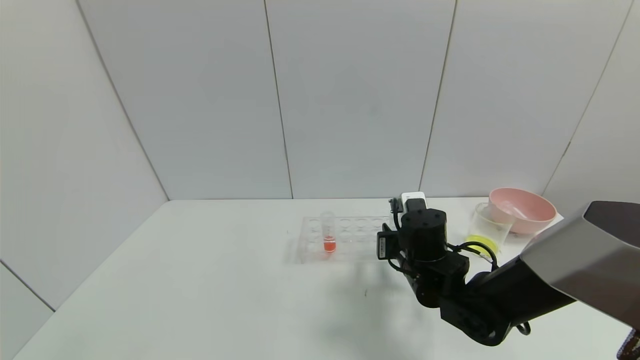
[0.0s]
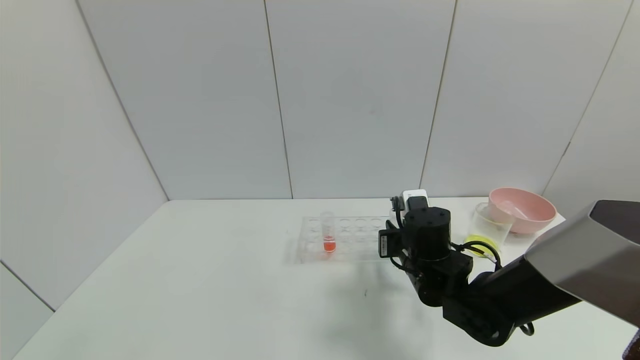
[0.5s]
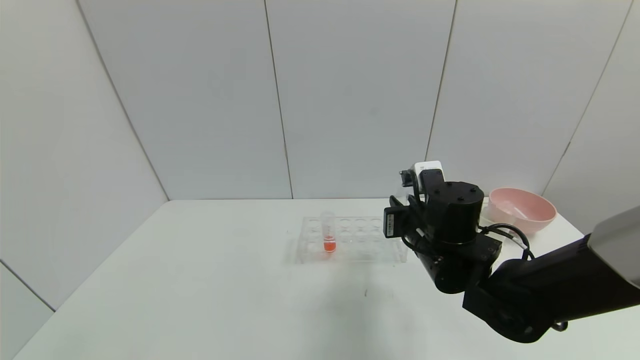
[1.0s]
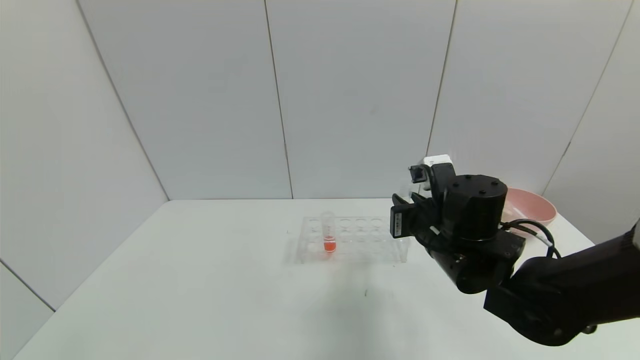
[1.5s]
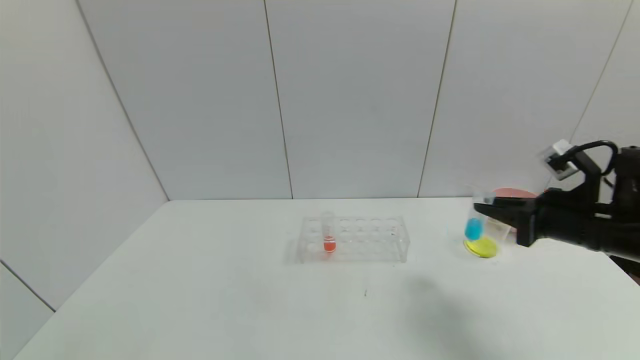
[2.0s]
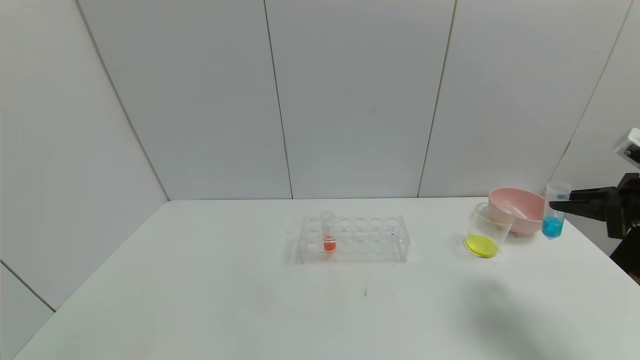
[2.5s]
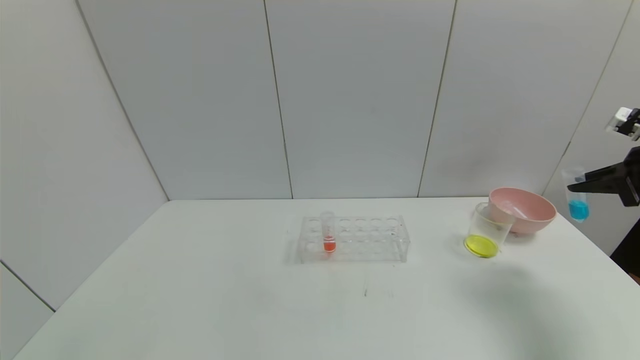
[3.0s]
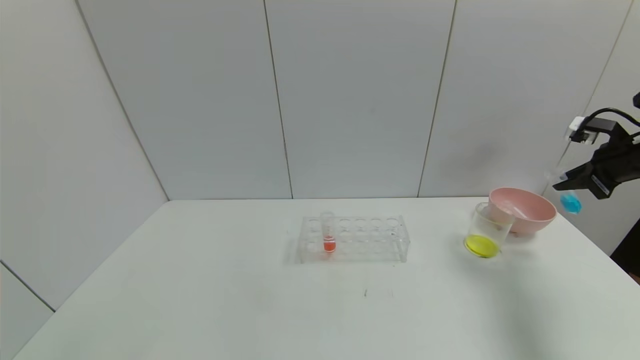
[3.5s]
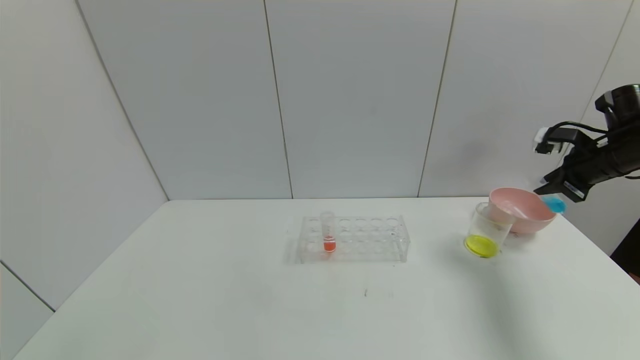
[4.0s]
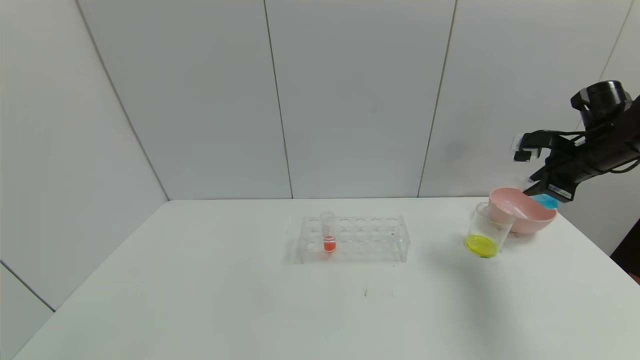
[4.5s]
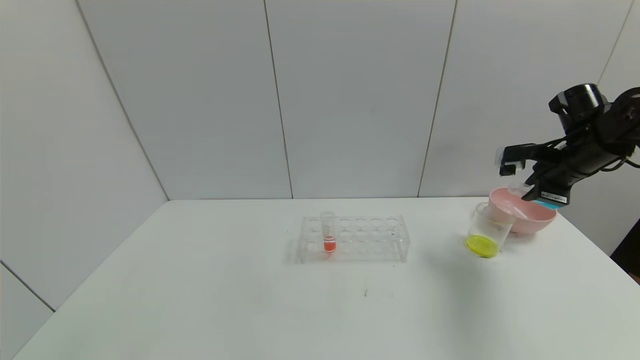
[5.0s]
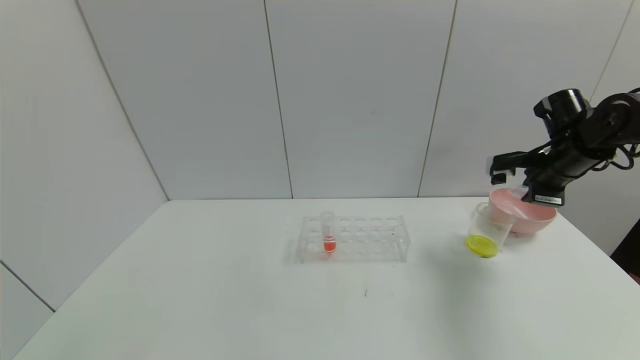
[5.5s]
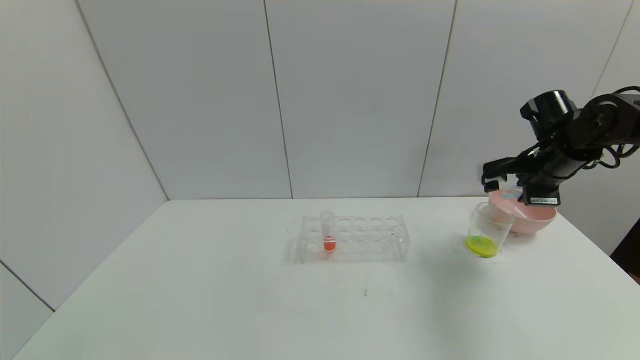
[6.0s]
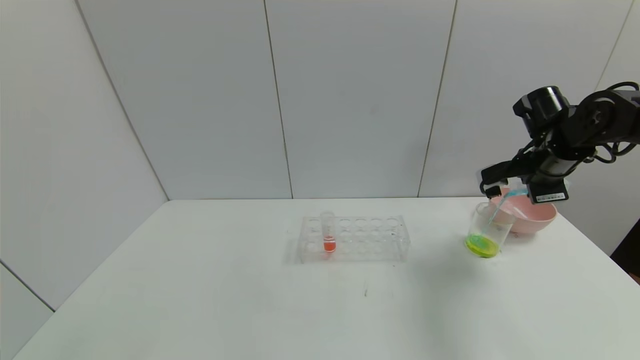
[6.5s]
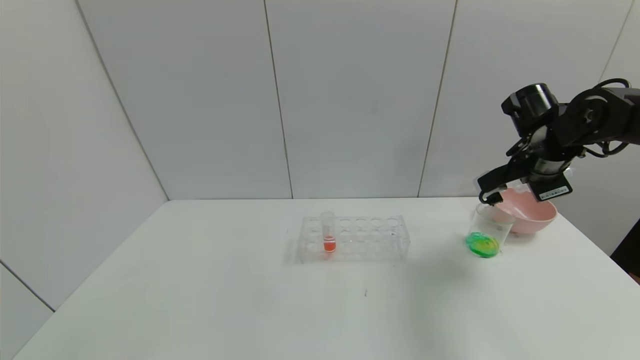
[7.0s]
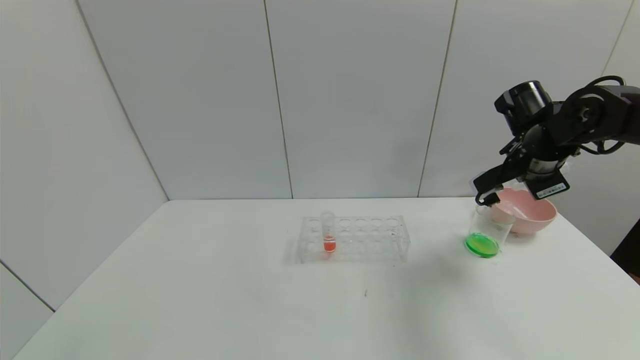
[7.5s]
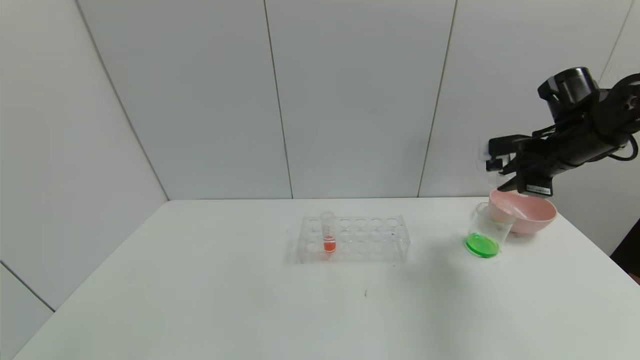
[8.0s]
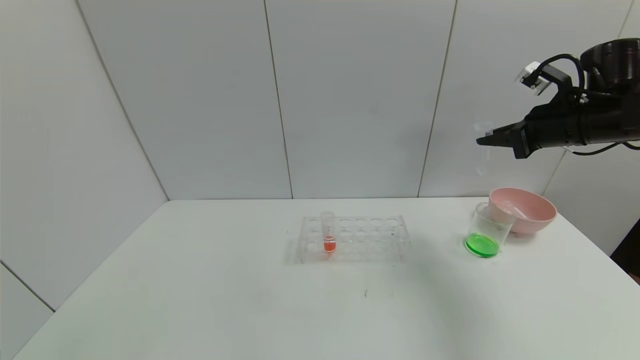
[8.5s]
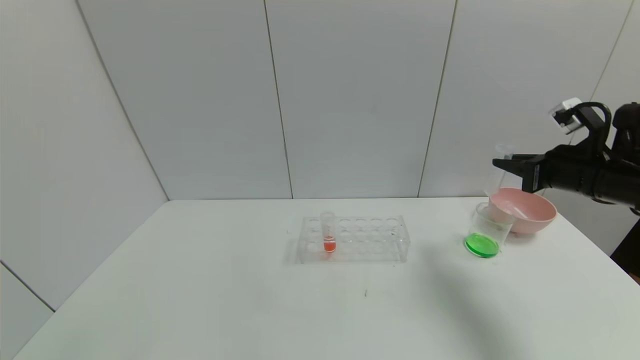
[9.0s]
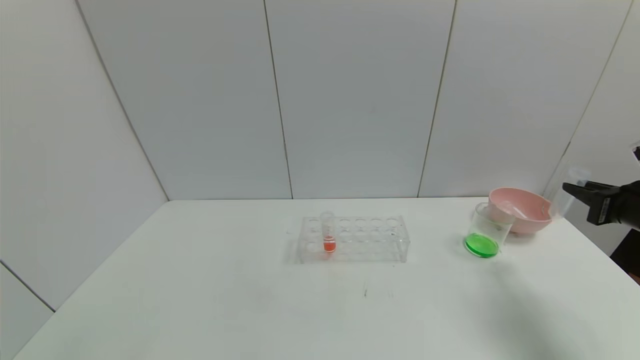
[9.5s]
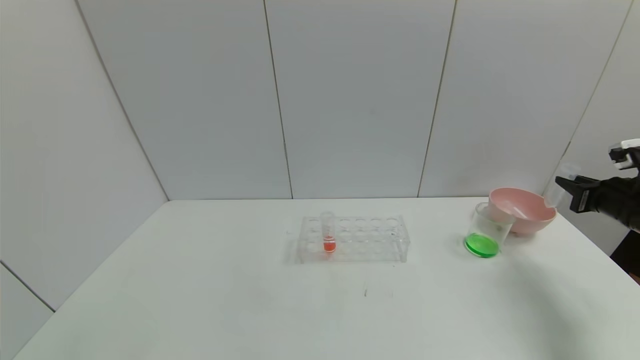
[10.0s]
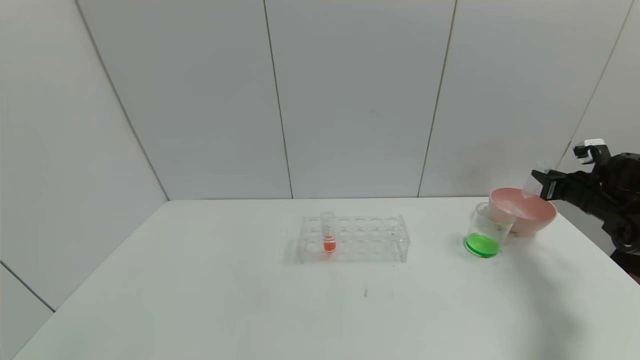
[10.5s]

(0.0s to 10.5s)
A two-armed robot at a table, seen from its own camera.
Task of the whole recording: pick up the test tube with yellow pigment and the test tube with blue pigment by grippers and pour them into the beaker.
Step, 2.0s - 8.5s: Pour the blue reagent into the graduated cylinder with right gripper.
0.0s - 2.0s: The right gripper travels to the right and upward by roughly 20 cm.
2.0s - 4.0s: The right gripper heads forward and to the right, covering about 15 cm.
4.0s - 6.5s: The right gripper travels to the left by roughly 10 cm.
6.5s - 8.5s: The right gripper goes approximately 5 cm upward.
8.5s - 10.5s: The right gripper heads downward and to the right, covering roughly 20 cm.

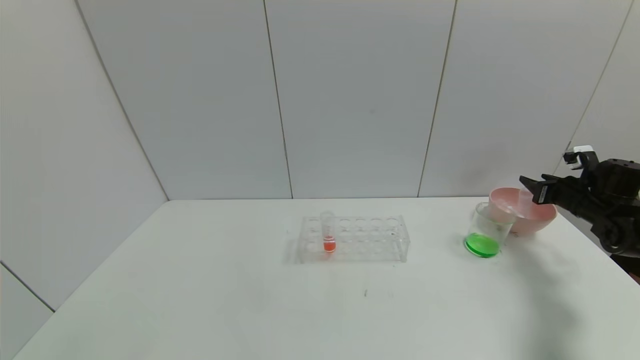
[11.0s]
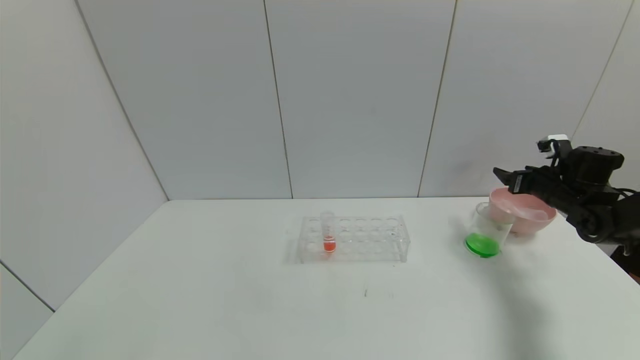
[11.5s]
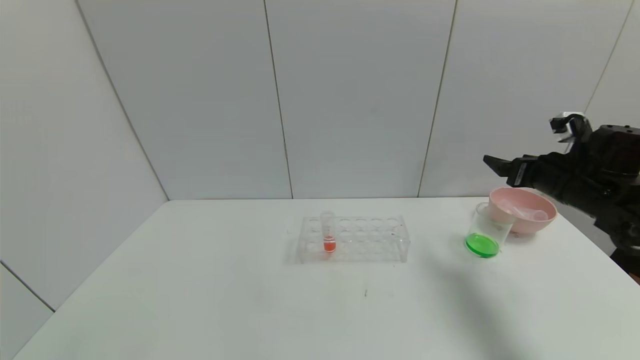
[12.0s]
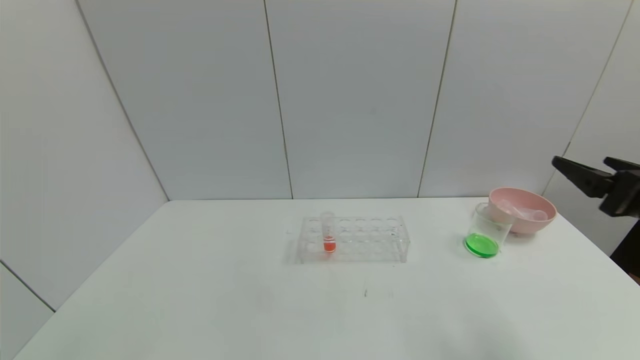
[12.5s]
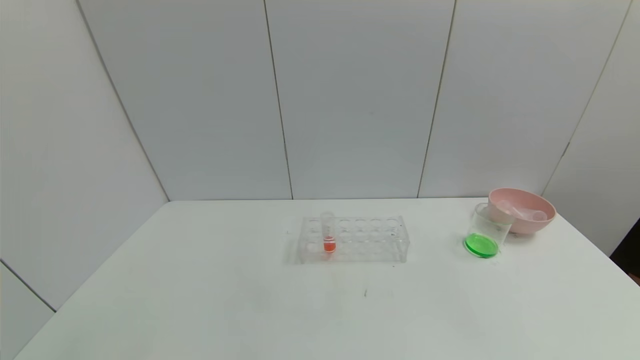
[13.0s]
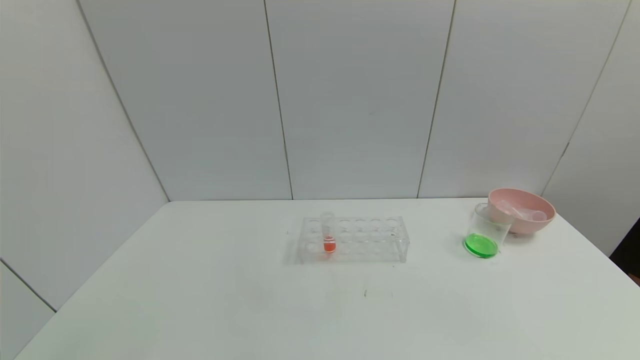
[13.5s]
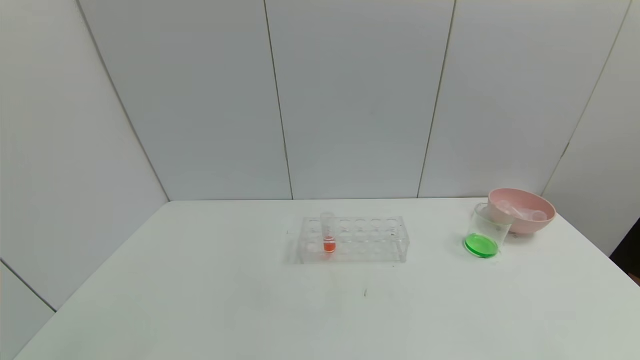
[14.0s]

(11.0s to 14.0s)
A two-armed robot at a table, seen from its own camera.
Task of the whole recording: pick up the test tube with yellow pigment and the test tube with blue pigment by grippers and pour them into the beaker.
11.0s - 12.5s: The right gripper shifts approximately 30 cm backward, to the left and upward, and opens up.
12.5s - 14.0s: The right gripper is displaced backward and downward by approximately 30 cm.
